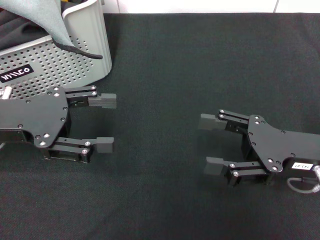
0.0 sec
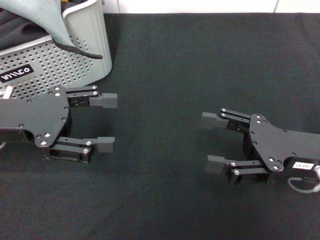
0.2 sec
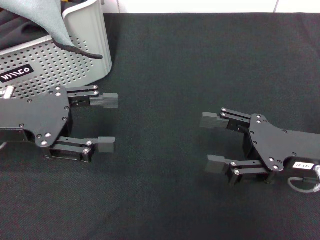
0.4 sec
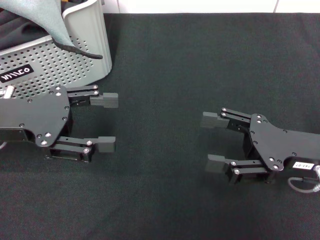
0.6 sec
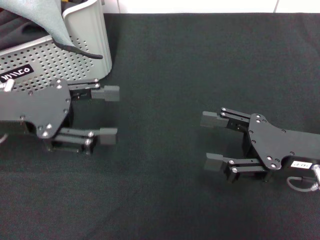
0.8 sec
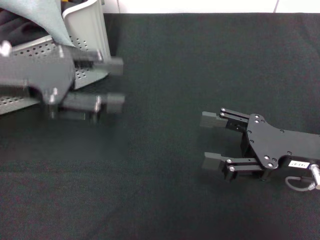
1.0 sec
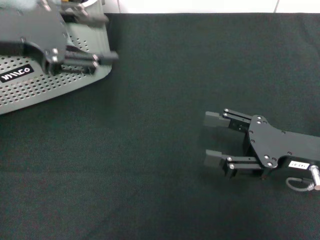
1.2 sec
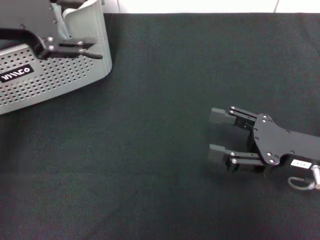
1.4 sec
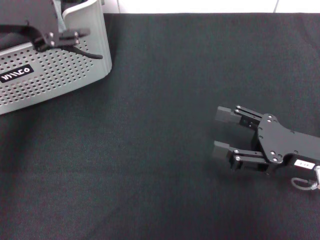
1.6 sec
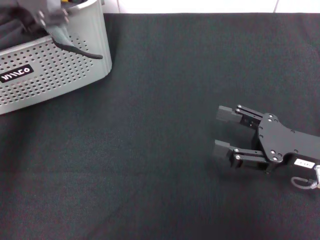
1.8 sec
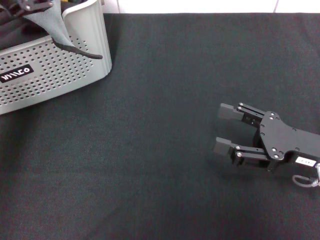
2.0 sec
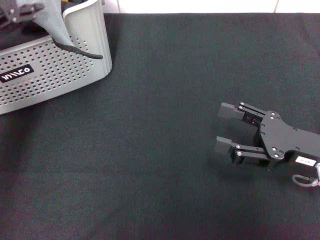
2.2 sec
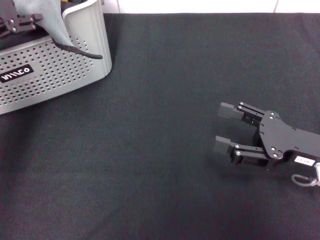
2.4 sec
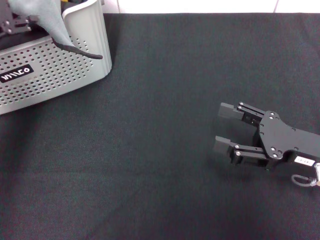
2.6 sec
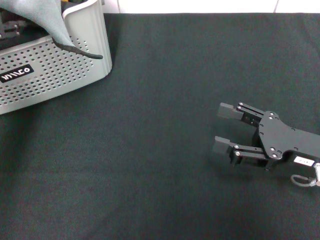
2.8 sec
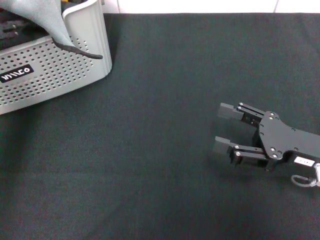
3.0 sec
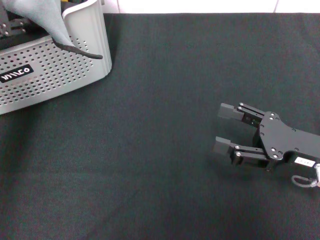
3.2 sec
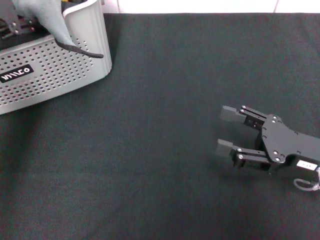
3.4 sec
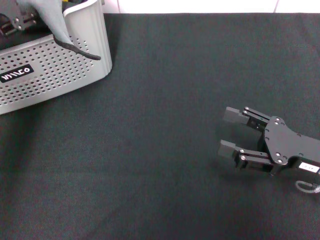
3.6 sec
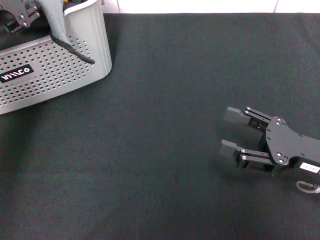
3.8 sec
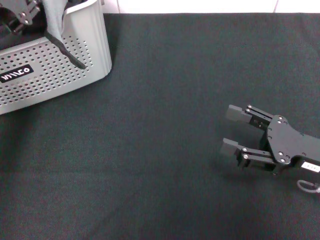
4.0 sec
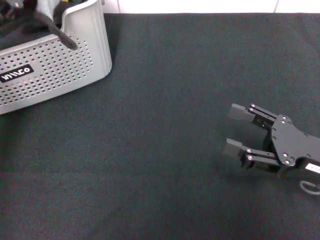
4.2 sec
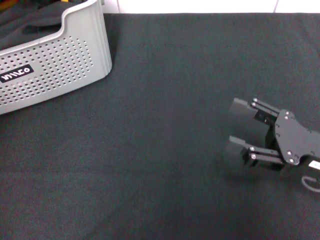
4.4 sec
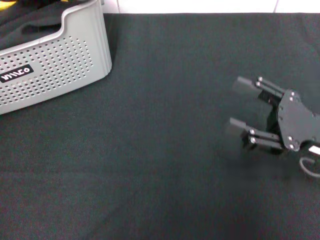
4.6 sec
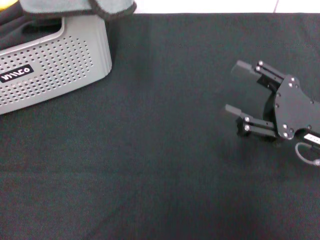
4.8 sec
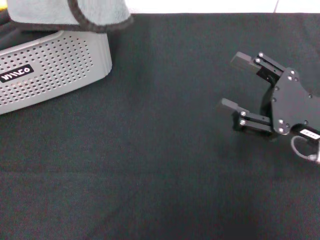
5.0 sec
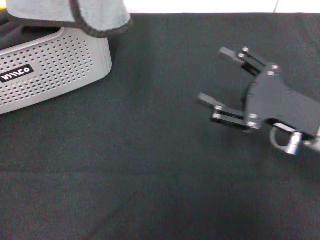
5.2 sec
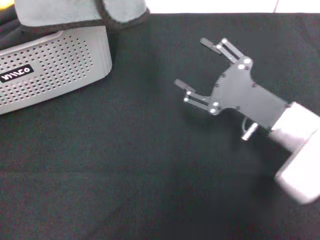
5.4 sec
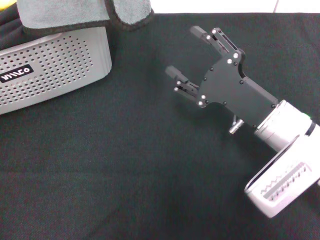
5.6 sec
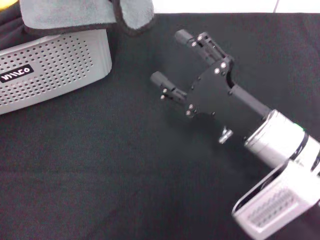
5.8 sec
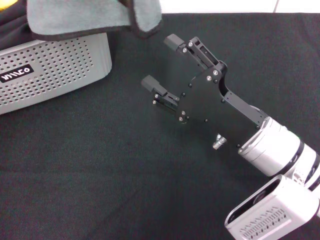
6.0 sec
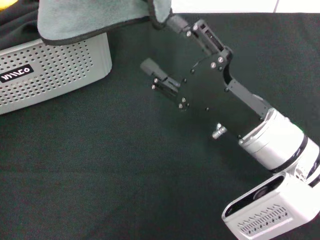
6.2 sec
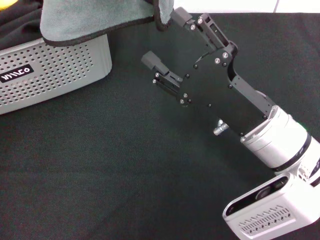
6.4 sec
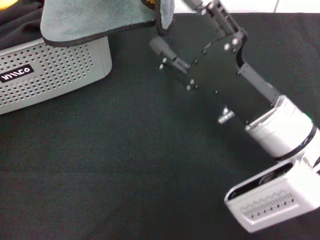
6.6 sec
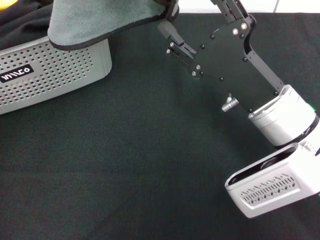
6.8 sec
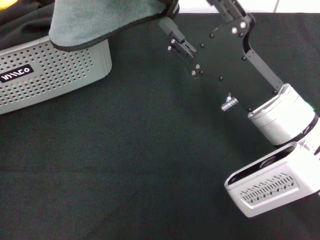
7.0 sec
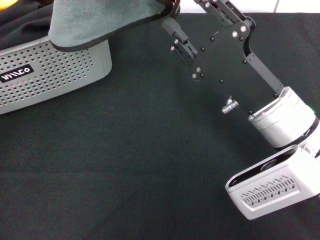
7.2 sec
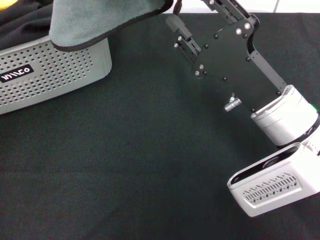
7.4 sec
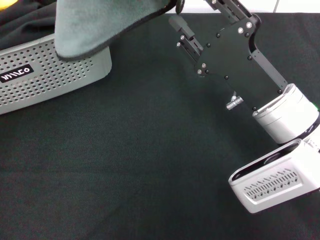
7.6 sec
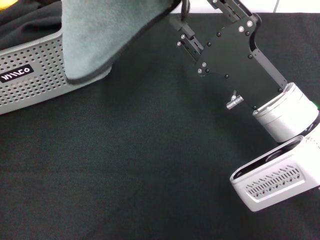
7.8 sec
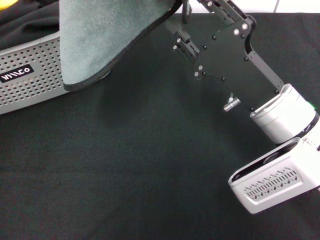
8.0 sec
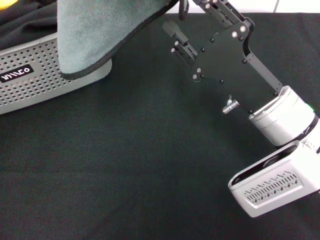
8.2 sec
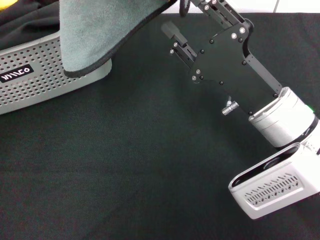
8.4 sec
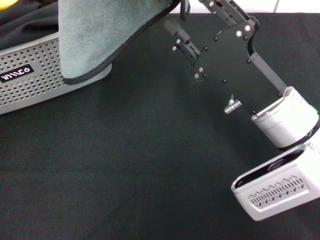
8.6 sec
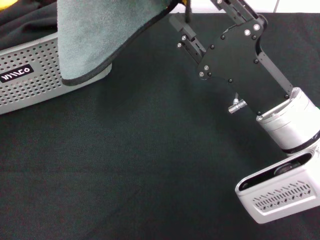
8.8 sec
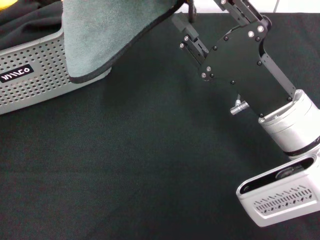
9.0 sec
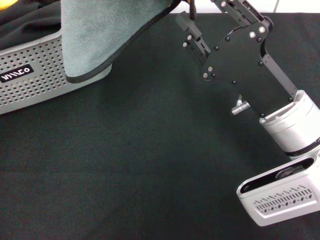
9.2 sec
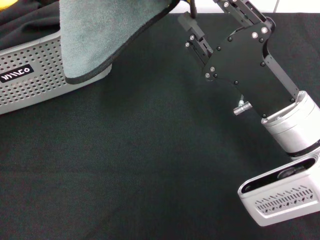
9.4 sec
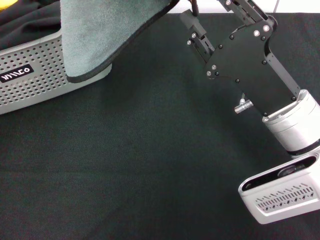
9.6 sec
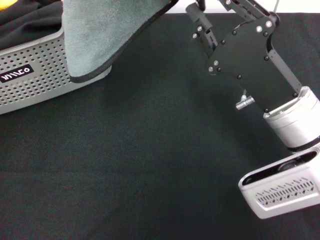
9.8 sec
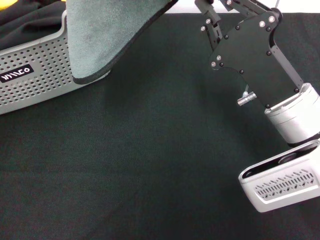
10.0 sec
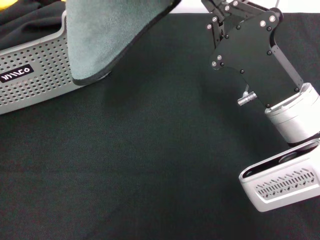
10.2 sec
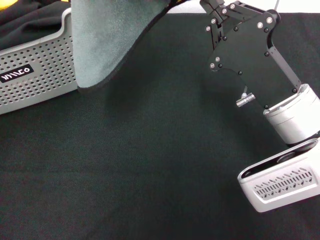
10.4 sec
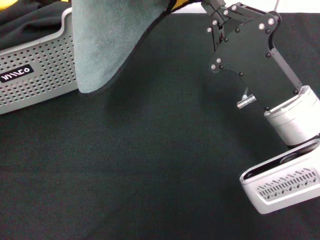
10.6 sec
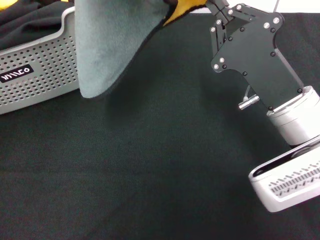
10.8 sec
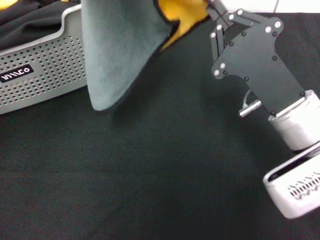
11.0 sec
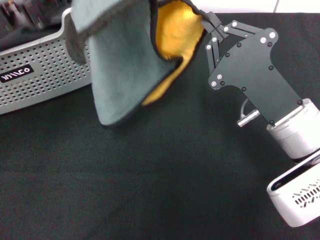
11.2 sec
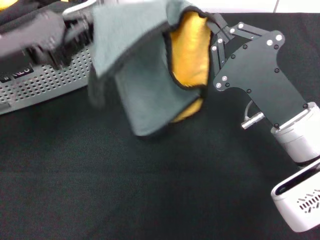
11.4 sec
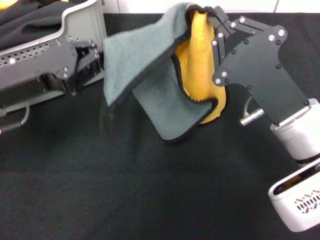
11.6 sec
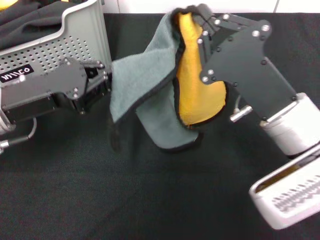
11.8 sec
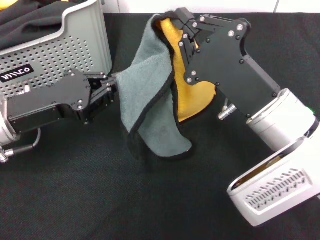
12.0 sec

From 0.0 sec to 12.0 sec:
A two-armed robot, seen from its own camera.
Task of the whole recording: pick up the towel from the storage box and lay it flat on the black tablecloth.
Step, from 0.0 sec to 4.0 sec: Pick up a towel with the left gripper.
Step, from 4.2 sec to 10.6 sec: Spread the towel flat with the left gripper.
From 0.0 sec to 1.6 sec: The left gripper heads upward and to the right, covering approximately 15 cm.
From 1.6 sec to 3.0 sec: The grippers move only a little.
From 3.0 sec to 4.4 sec: The left gripper closes.
From 4.4 sec to 6.0 sec: The right gripper shifts approximately 10 cm to the left.
From 7.6 sec to 9.0 sec: The grippers move only a little.
From 9.0 sec to 10.4 sec: The right gripper closes up.
From 10.4 sec to 12.0 sec: The left gripper heads downward, covering roughly 20 cm.

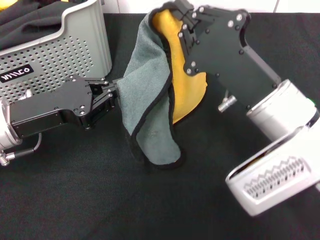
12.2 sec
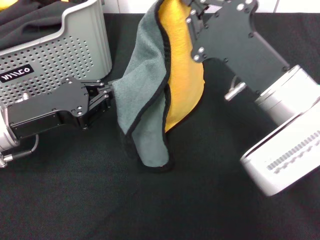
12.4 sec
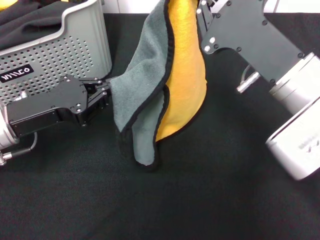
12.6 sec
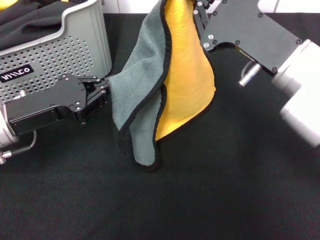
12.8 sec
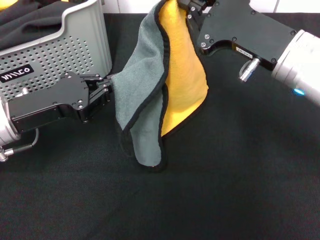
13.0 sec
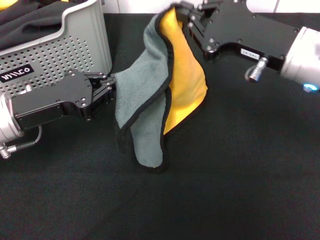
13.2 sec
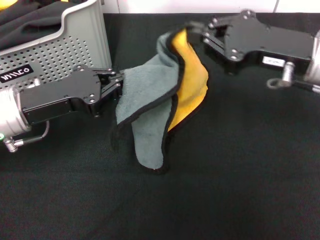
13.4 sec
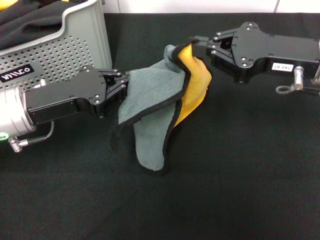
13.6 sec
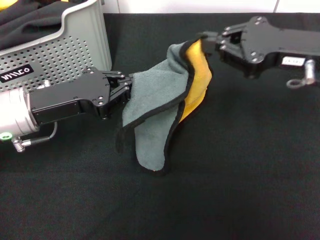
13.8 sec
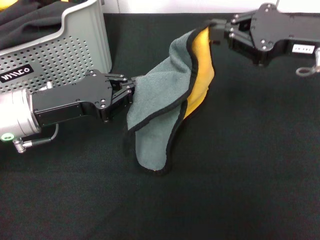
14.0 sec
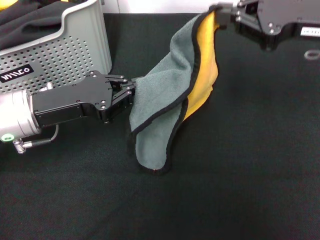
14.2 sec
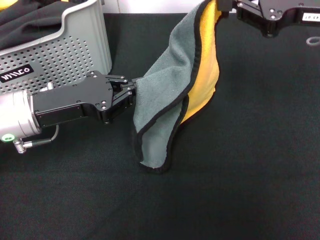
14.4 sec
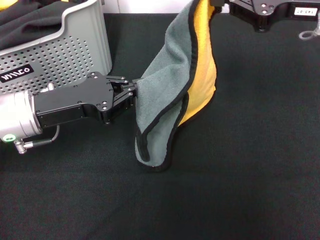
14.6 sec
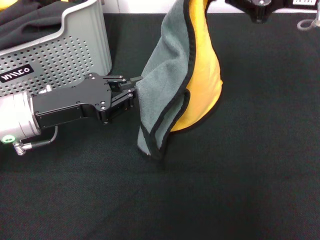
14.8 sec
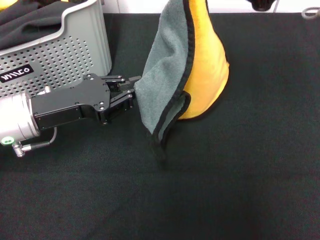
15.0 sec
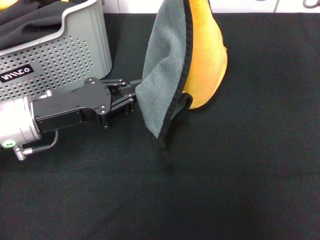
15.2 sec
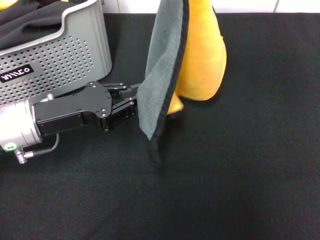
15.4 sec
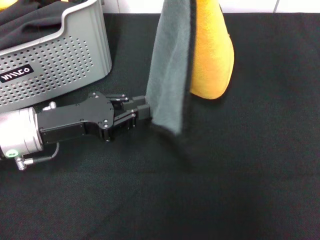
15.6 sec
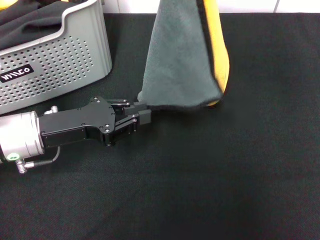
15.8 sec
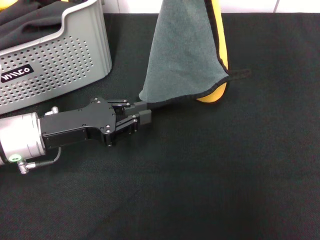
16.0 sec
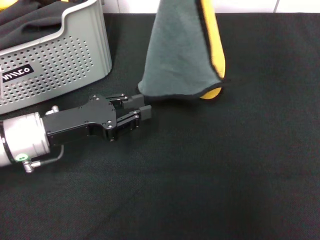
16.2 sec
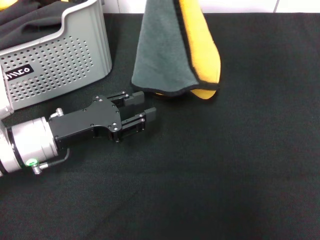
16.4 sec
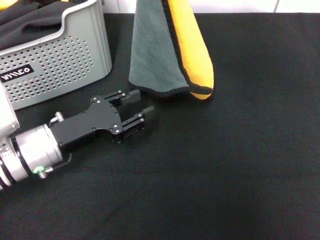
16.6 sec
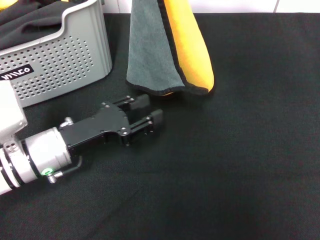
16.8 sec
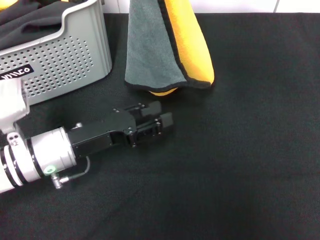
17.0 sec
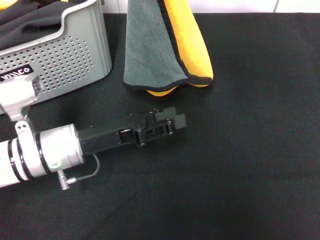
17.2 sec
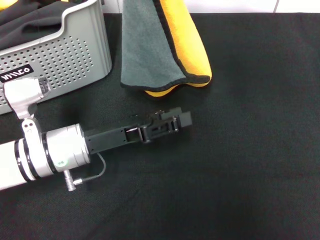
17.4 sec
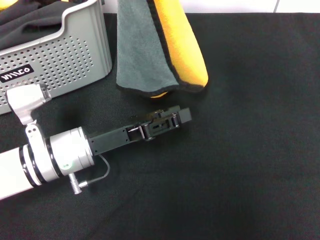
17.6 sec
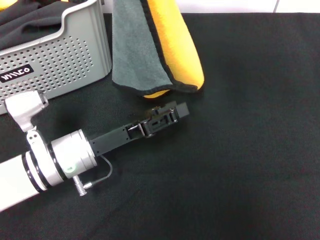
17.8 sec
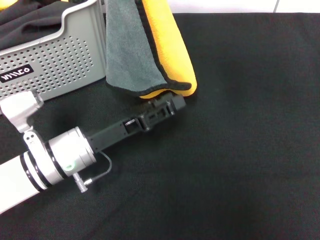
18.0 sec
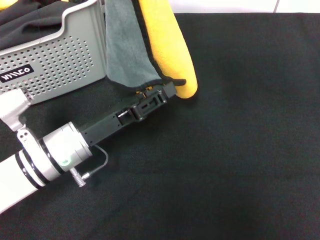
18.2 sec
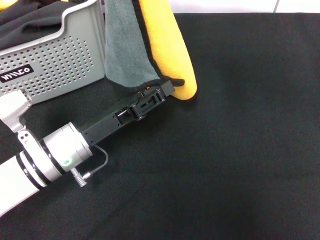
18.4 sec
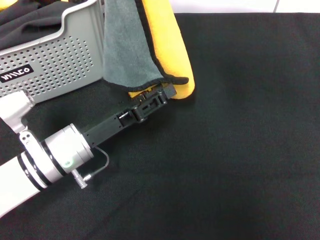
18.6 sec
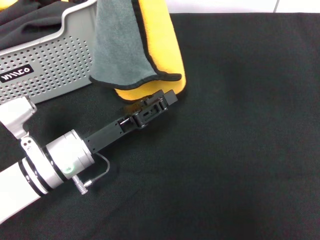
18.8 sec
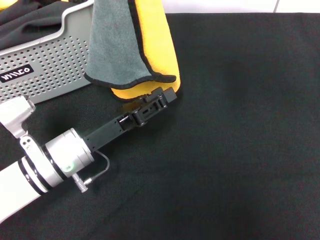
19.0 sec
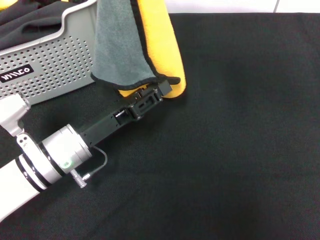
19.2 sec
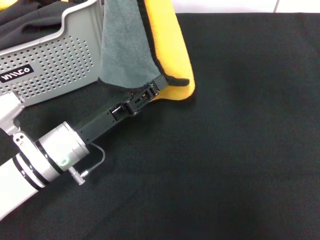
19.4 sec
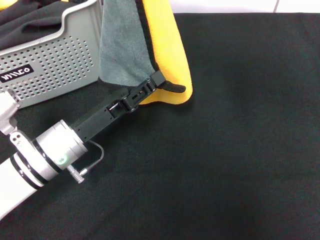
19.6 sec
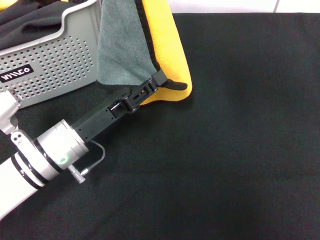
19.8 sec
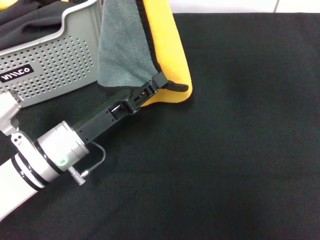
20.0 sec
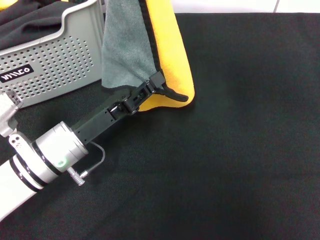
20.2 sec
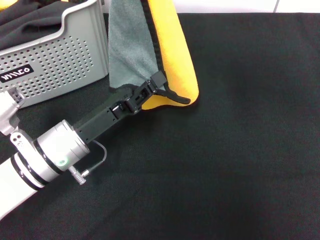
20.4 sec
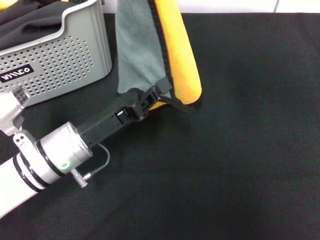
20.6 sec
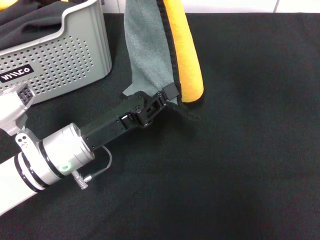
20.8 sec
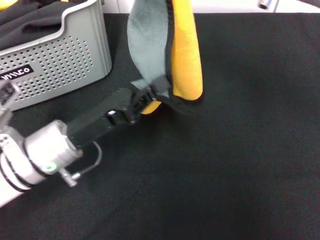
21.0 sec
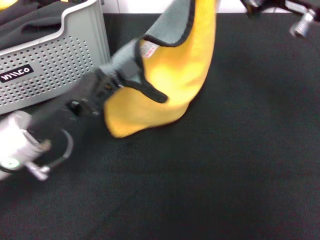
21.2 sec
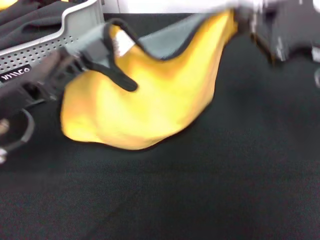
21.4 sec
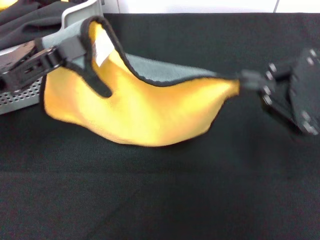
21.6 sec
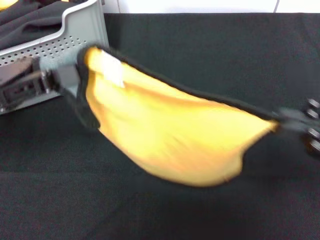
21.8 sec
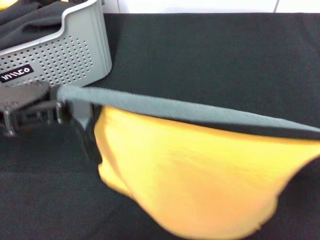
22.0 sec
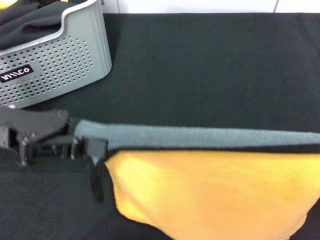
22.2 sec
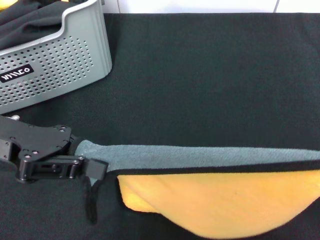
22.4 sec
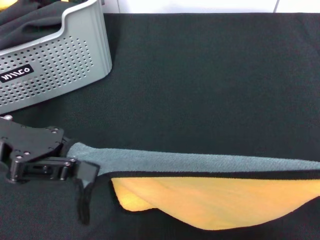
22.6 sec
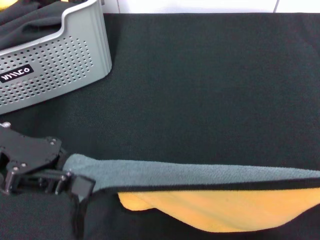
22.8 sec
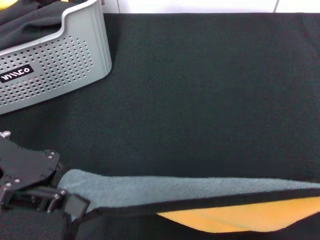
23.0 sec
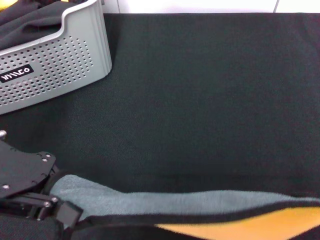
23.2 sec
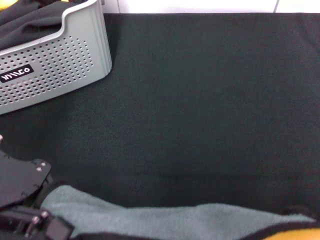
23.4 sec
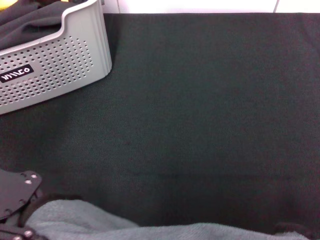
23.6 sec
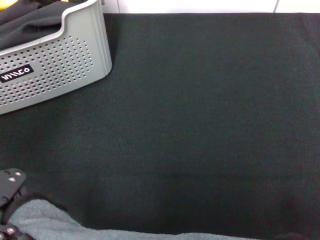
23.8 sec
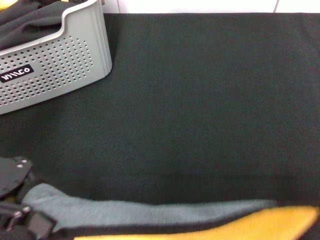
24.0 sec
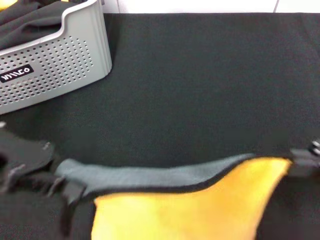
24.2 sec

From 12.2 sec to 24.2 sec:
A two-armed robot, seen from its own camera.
Task of the whole recording: pick up the towel from the storage box and lay it flat on the black tablecloth.
From 12.2 sec to 13.8 sec: The right gripper heads to the right, forward and upward, covering some 15 cm.
From 13.8 sec to 15.2 sec: The right gripper goes about 10 cm upward.
From 15.2 sec to 16.6 sec: The left gripper heads downward, covering approximately 5 cm, and opens, while the right gripper travels to the left by approximately 5 cm.
From 18.2 sec to 19.8 sec: The grippers make only small movements.
From 19.8 sec to 21.2 sec: The right gripper heads to the right and downward, covering roughly 10 cm, while the left gripper moves some 5 cm, and closes its fingers.
From 21.2 sec to 22.6 sec: The left gripper travels upward and to the left by some 10 cm; the right gripper heads backward, to the right and downward, covering some 20 cm.
From 22.6 sec to 24.2 sec: The right gripper shifts approximately 5 cm forward.
